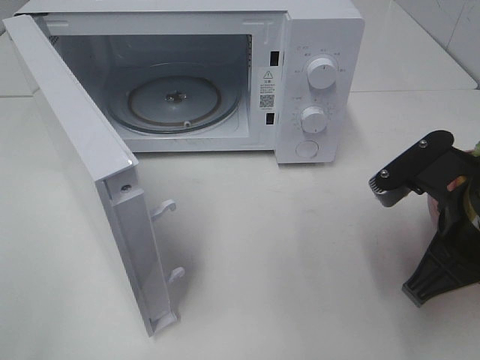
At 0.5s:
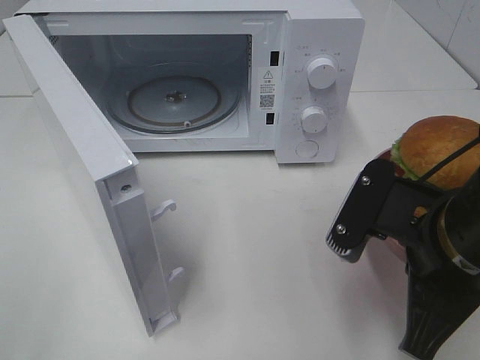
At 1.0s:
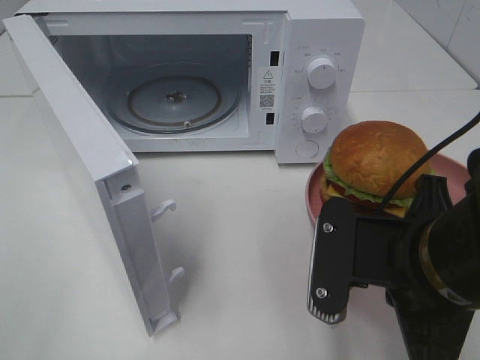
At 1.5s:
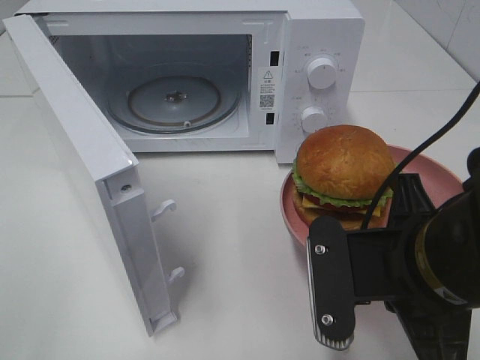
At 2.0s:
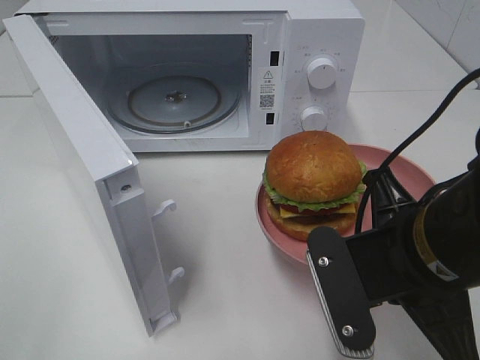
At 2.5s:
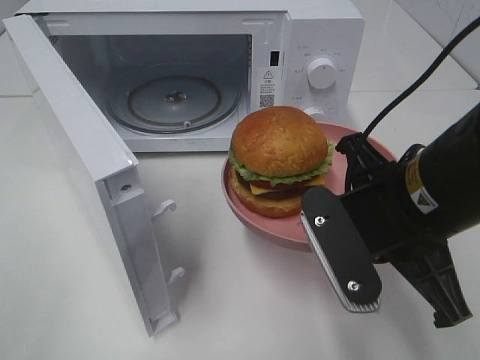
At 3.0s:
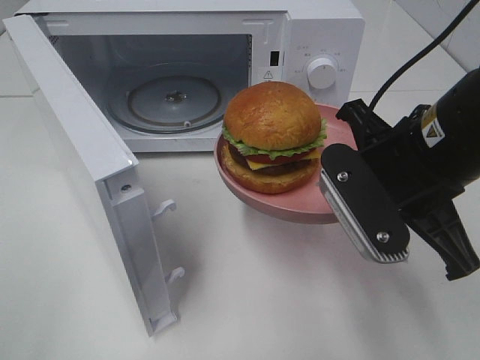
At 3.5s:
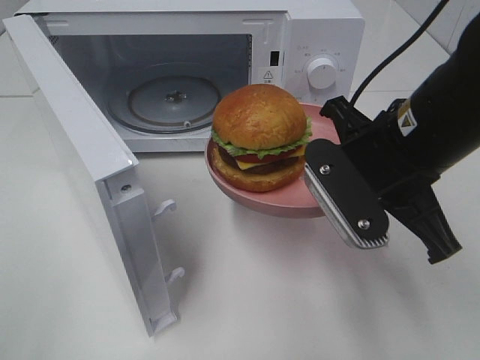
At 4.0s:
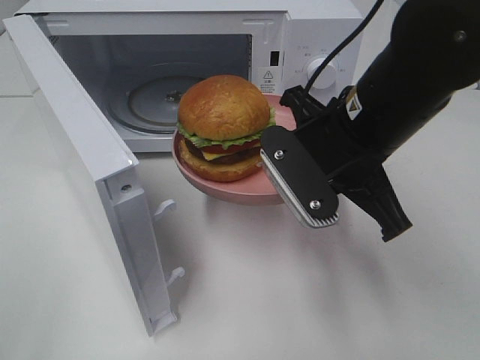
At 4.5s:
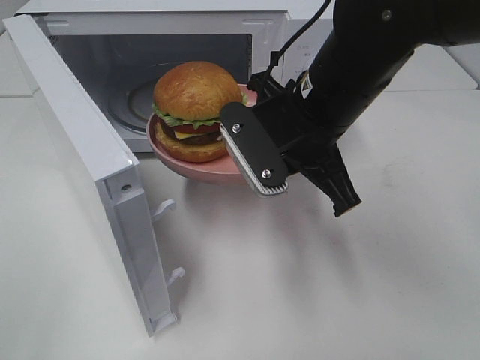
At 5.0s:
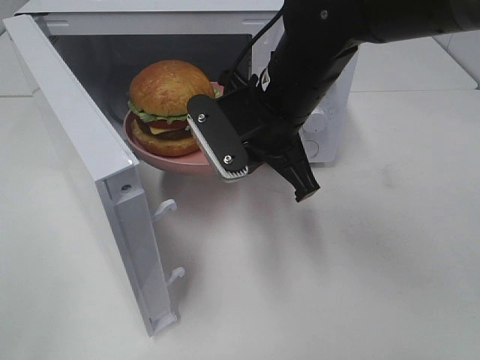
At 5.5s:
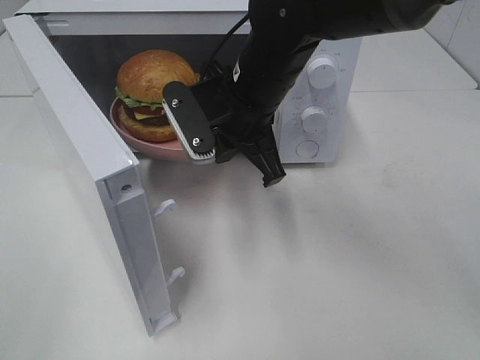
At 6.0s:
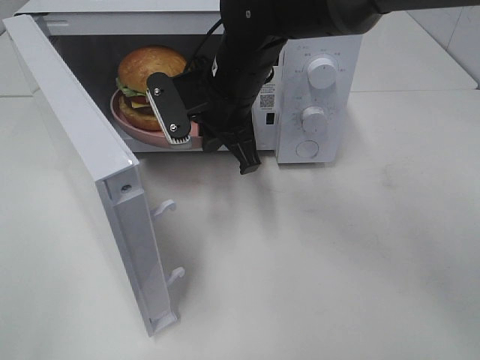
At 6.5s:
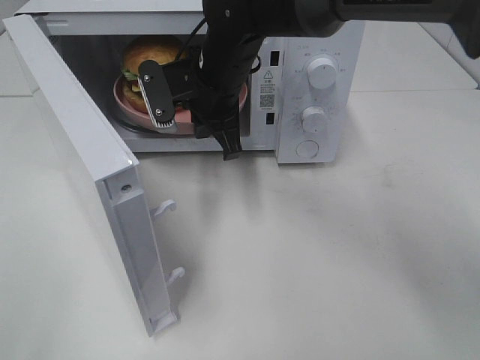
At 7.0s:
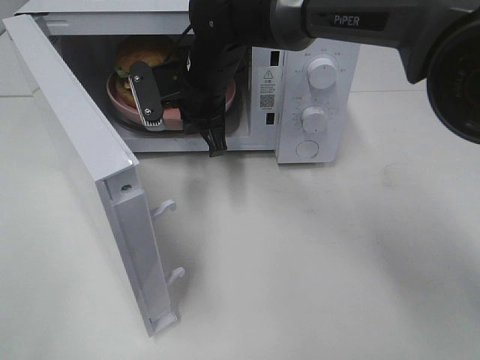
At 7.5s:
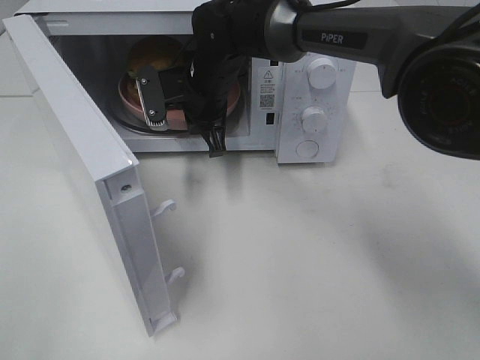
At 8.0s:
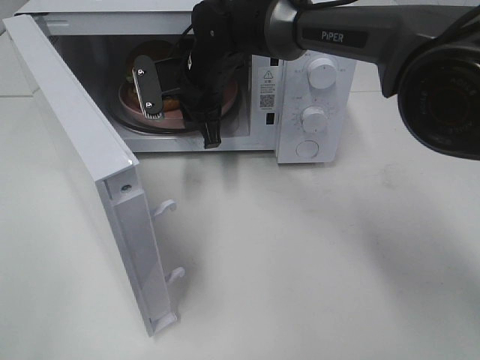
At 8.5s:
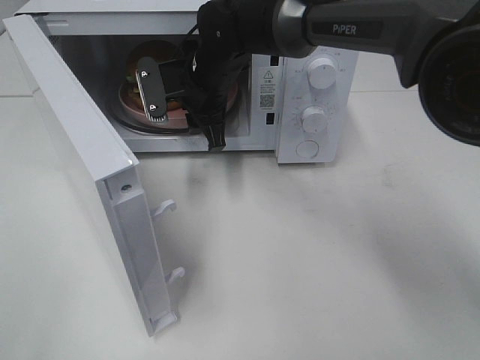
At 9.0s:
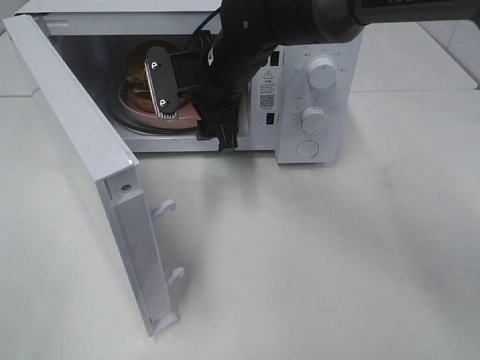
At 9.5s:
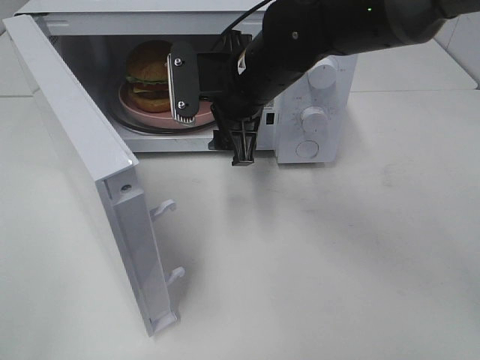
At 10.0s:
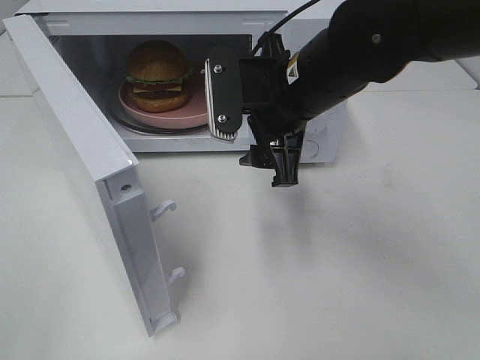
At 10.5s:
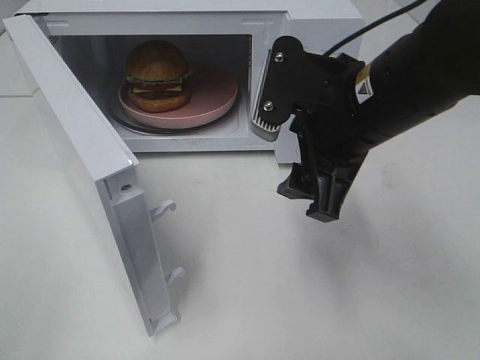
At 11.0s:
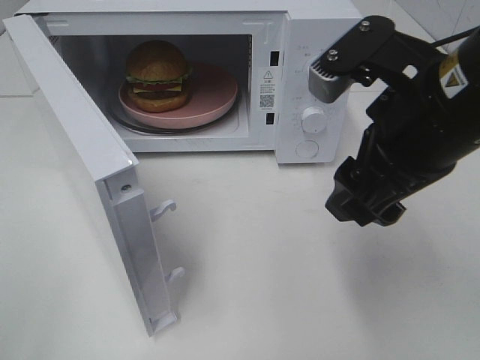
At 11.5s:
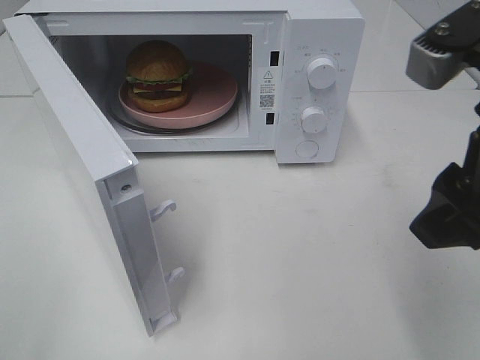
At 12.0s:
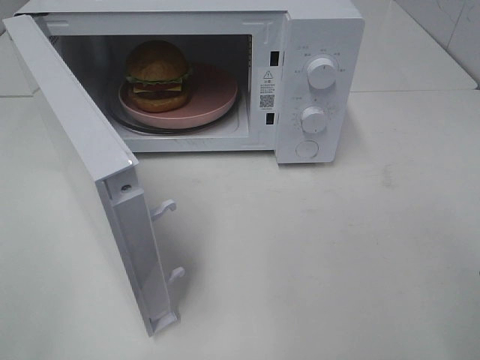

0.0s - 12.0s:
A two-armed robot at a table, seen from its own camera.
Task of the whole recording: Heat the burger.
Step, 0.0s - 8.5s: Right hand: place the plate in the microwave.
0.0s - 2.0s: The right gripper is displaced to the left by some 5 cm.
2.0s - 4.0s: The right gripper travels forward by approximately 10 cm.
4.0s - 6.0s: The right gripper shifts about 15 cm forward and to the left.
6.0s - 8.0s: The right gripper moves forward, some 5 cm, and opens its fingers.
8.0s - 10.0s: The right gripper travels backward and to the right by approximately 15 cm, and opens up.
10.0s - 12.0s: The right gripper travels backward and to the right by roughly 25 cm.

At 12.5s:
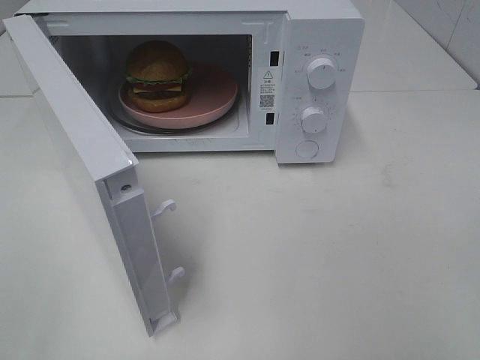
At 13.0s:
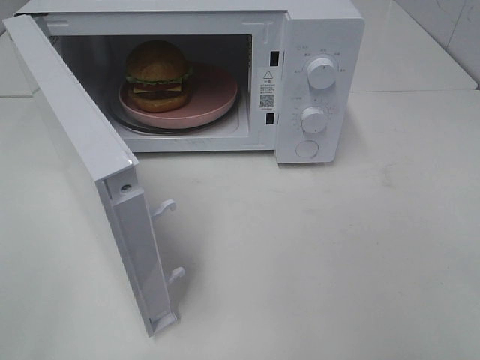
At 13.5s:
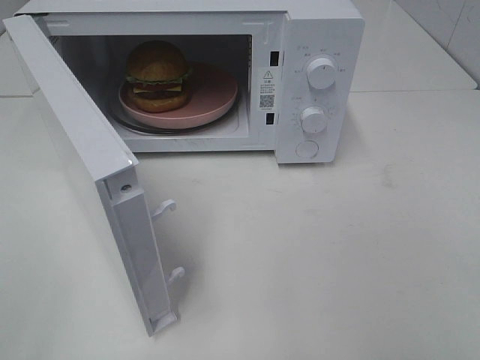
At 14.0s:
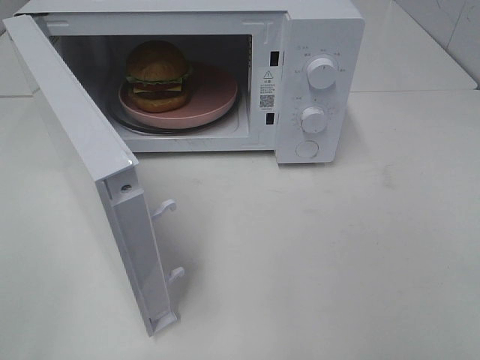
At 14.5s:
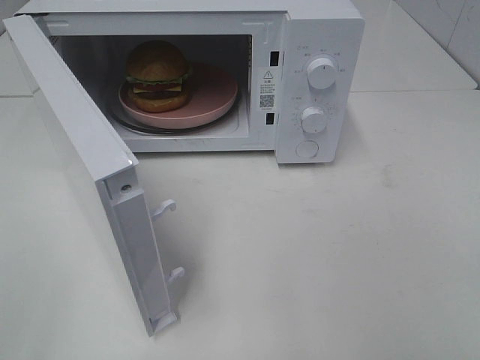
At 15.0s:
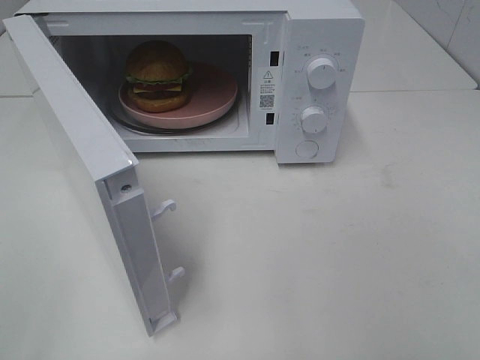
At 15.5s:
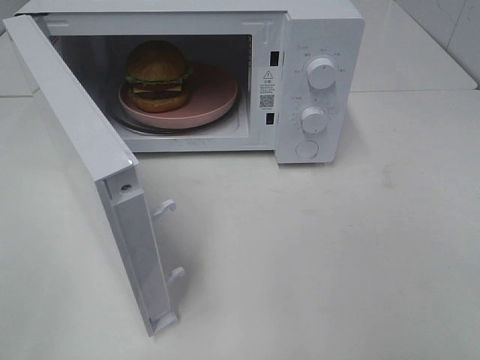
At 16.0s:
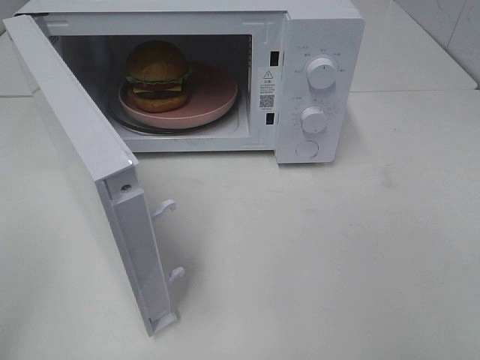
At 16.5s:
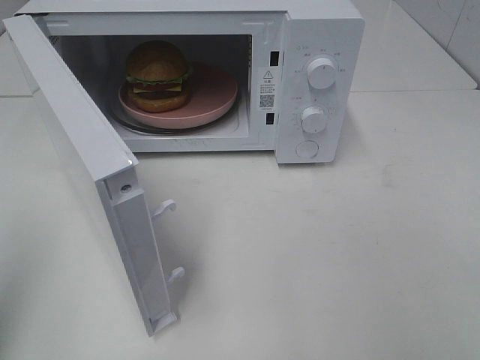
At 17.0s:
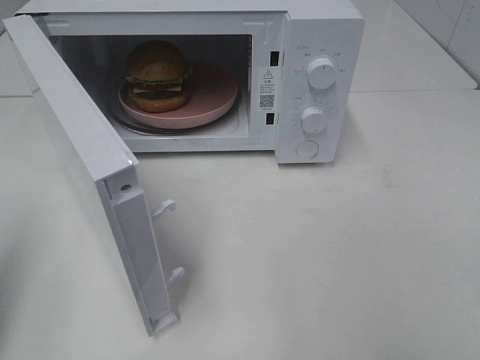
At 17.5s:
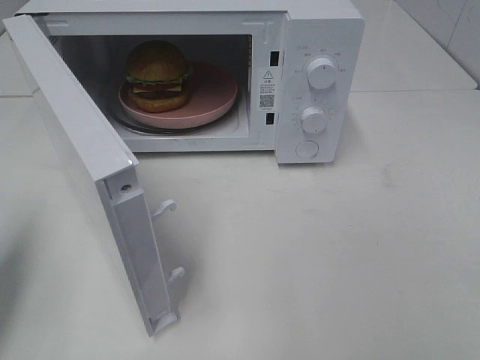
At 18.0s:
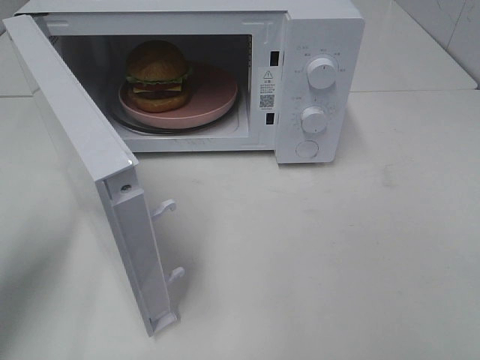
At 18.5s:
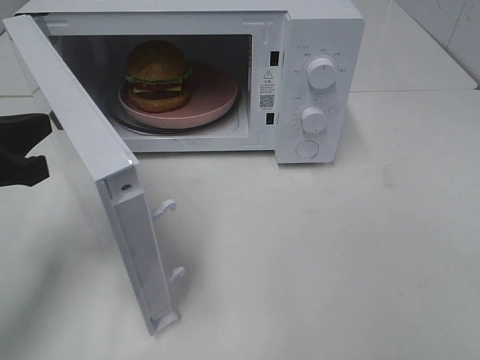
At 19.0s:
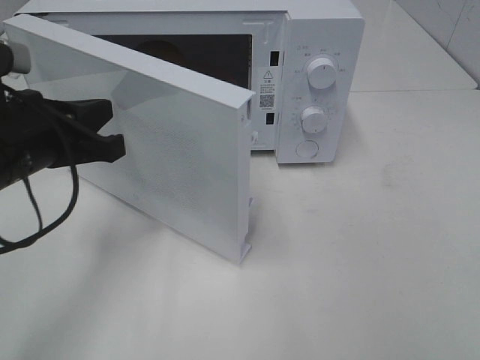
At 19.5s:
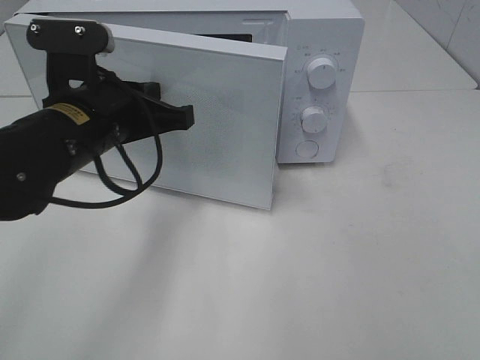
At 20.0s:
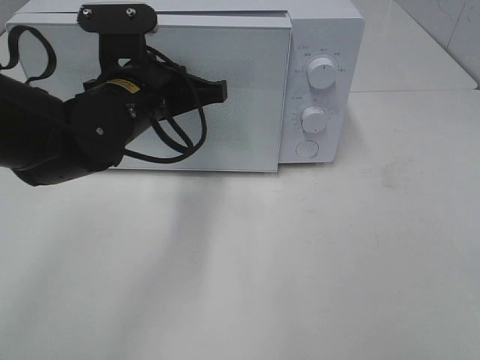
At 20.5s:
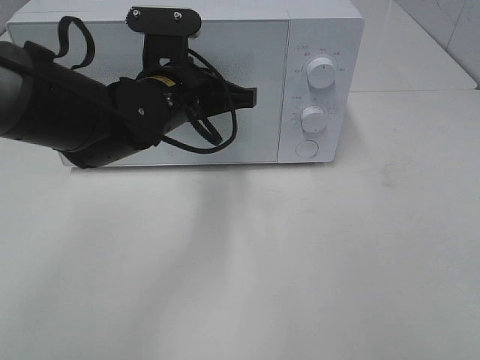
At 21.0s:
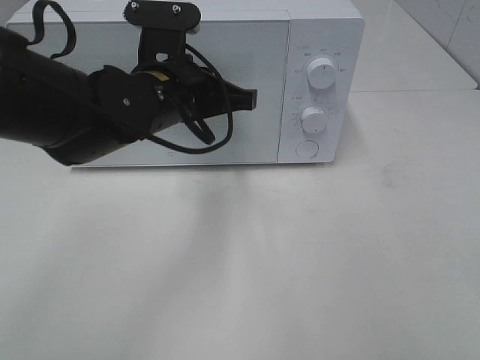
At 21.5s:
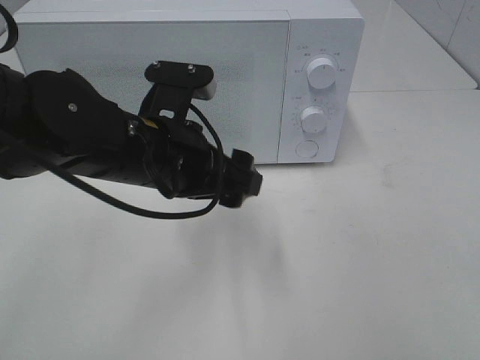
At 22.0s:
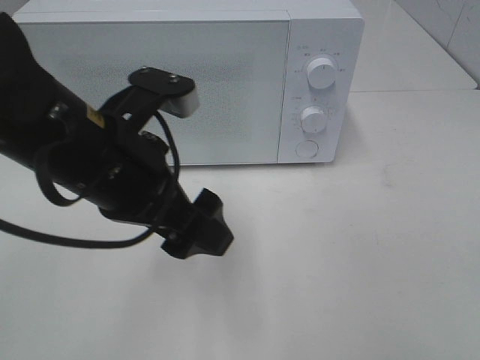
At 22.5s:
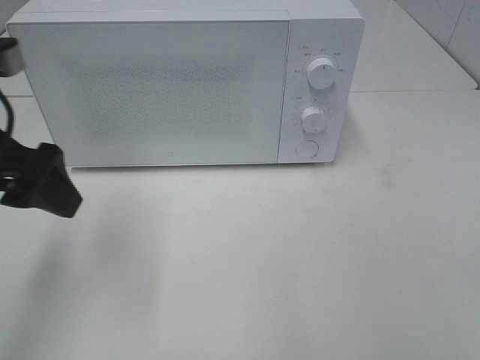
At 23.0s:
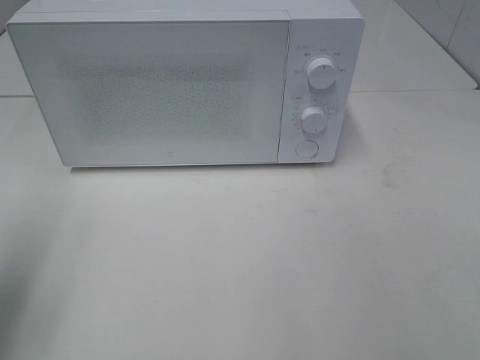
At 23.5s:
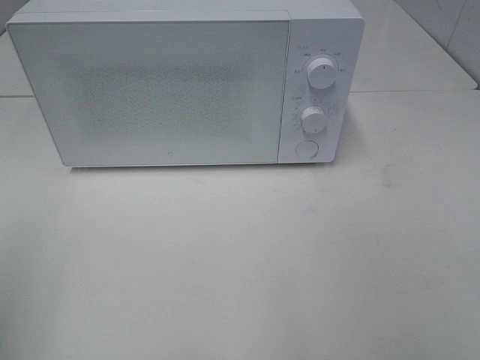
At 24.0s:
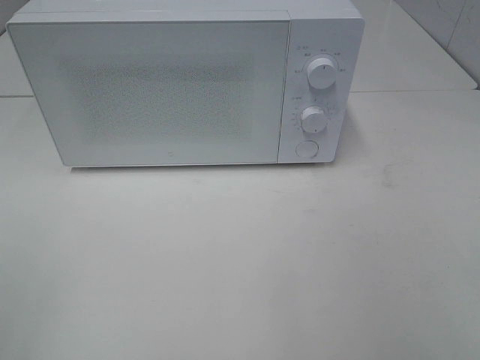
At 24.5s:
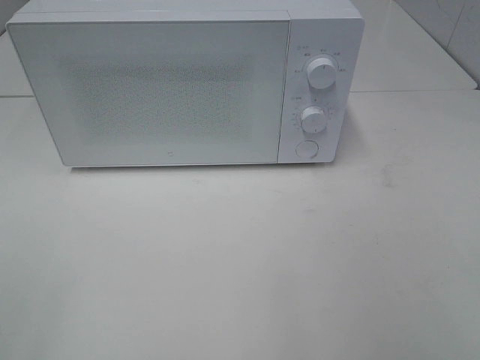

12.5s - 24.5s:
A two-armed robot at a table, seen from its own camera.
Task of the whole recording: Heat the burger.
Step, 12.5s - 21.0s: Left hand: close the microwave door.
16.5s - 18.5s: The left gripper heads forward, downward and to the right, covering roughly 20 cm.
18.5s - 20.5s: The left gripper shifts about 20 cm to the right and forward.
20.5s - 22.5s: The left gripper heads to the left, backward and upward, covering about 20 cm, and opens up.
22.5s - 24.5s: The left gripper moves backward and to the left, some 25 cm.

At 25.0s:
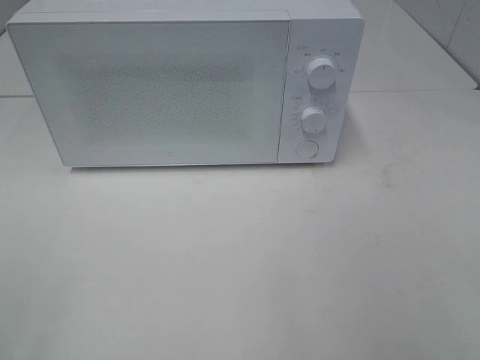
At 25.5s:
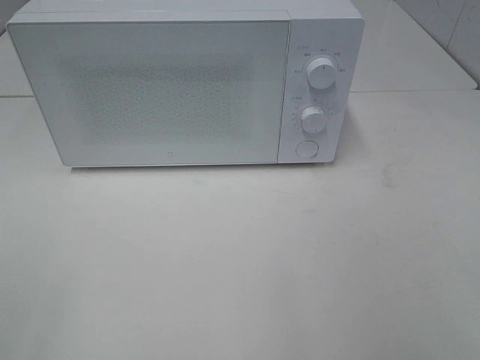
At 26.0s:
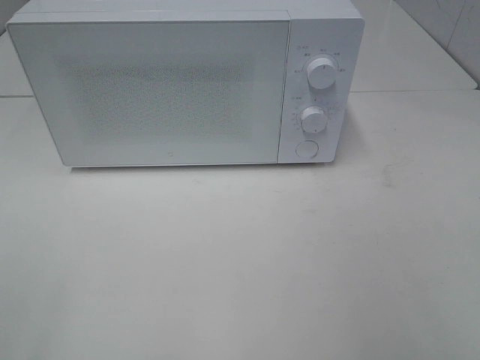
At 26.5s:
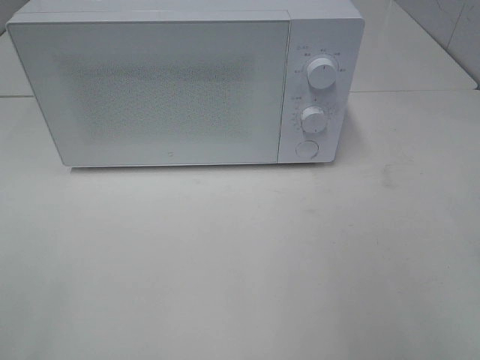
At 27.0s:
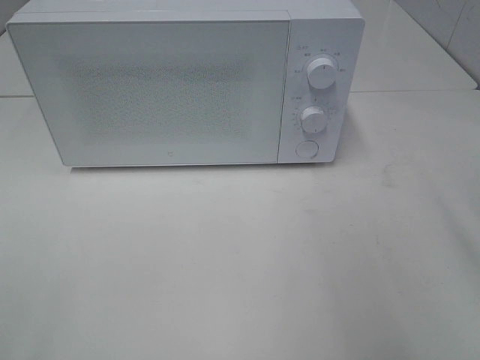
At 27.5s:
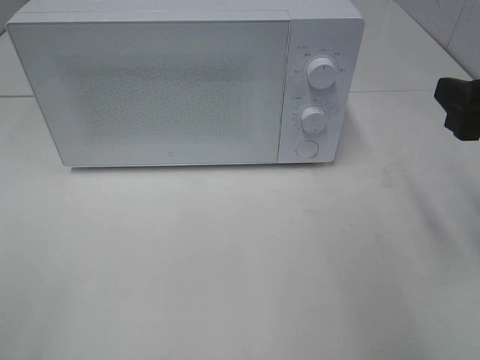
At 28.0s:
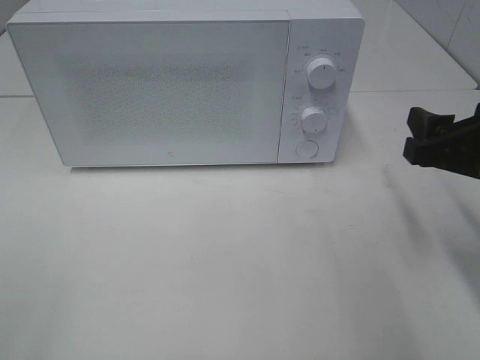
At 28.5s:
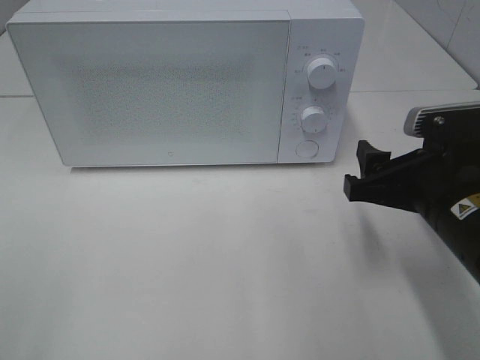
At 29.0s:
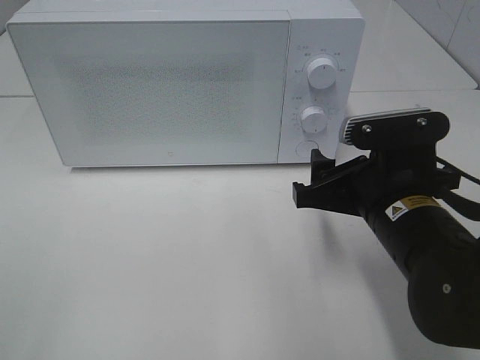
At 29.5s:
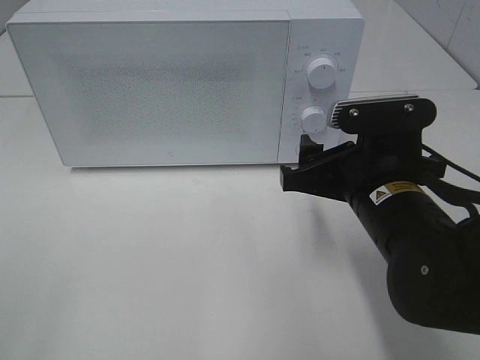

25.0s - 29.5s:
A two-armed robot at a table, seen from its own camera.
Task of the whole recording: Heat the burger.
27.0s - 29.5s: The right gripper is displaced downward and to the left by about 20 cm.
